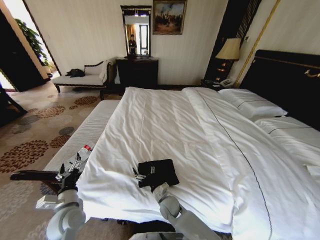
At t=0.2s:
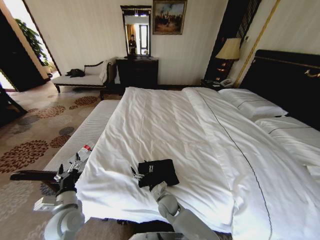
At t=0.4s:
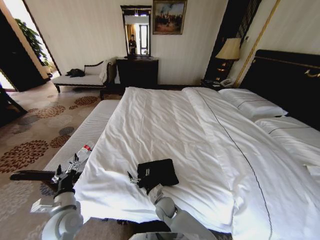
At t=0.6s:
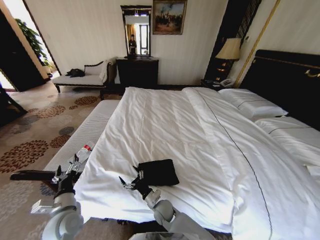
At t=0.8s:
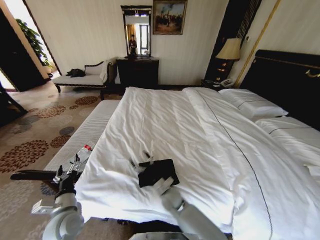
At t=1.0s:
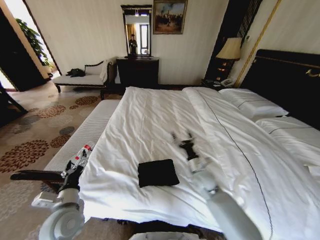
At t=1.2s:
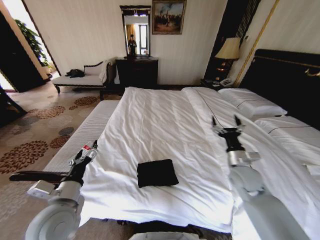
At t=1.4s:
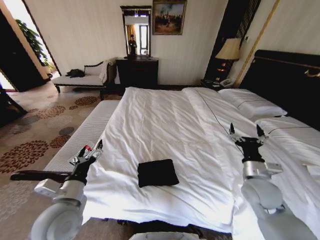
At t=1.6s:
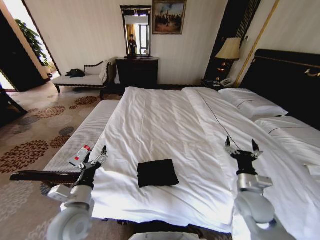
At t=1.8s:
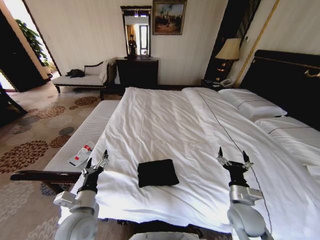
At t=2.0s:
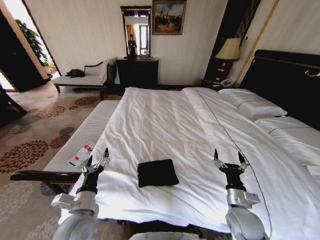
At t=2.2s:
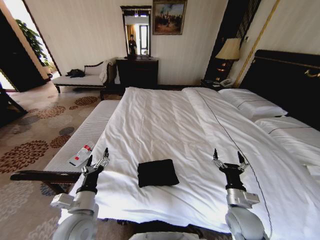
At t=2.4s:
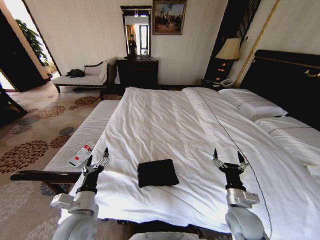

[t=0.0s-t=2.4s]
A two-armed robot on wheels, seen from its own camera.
Task of the whole recording: Fold the clothes on the bed.
t=0.0s to t=1.2s: The right gripper goes some 35 cm to the right and upward. Meanwhile the left gripper shifts roughly 10 cm upward.
t=1.2s to t=2.4s: The right gripper shifts about 15 cm backward and downward. The left gripper shifts approximately 5 cm downward.
